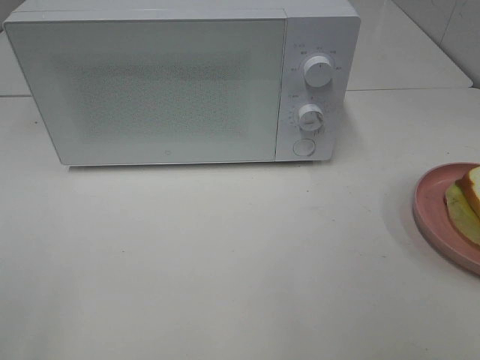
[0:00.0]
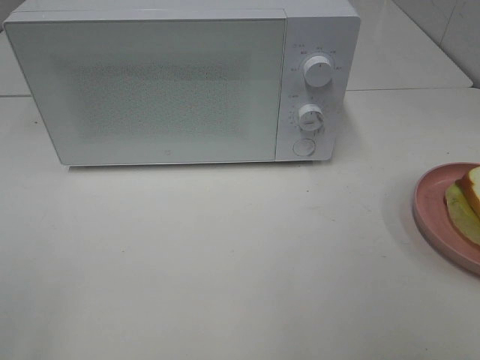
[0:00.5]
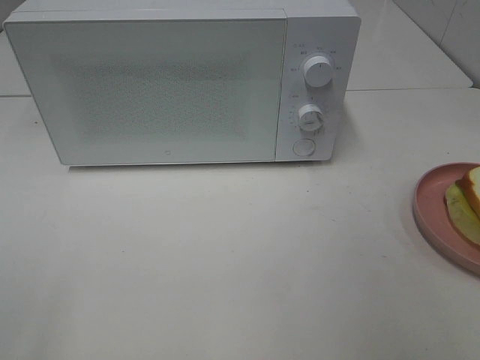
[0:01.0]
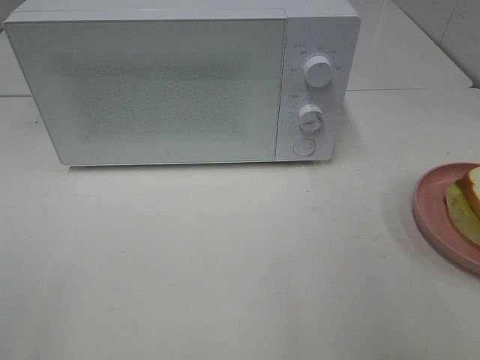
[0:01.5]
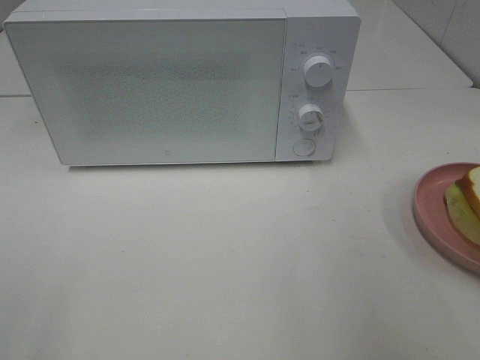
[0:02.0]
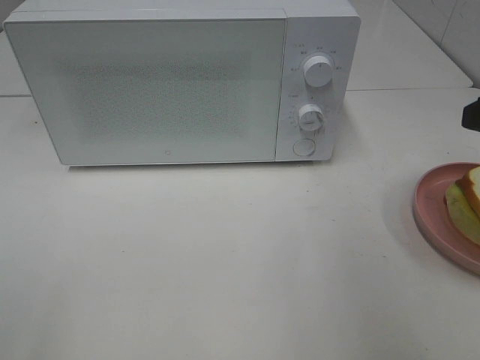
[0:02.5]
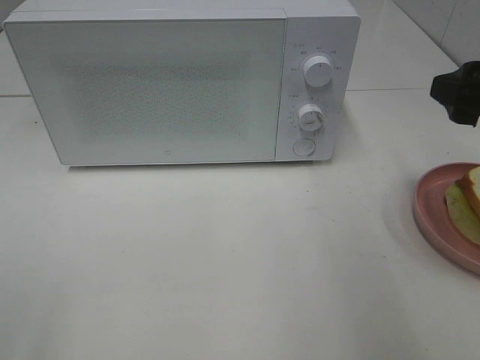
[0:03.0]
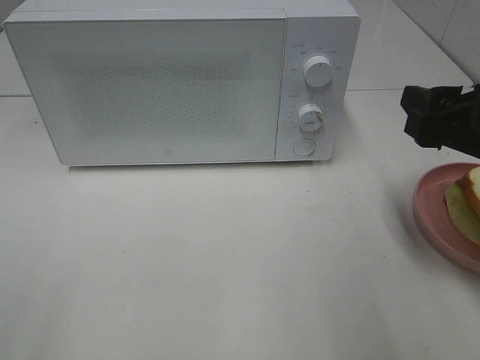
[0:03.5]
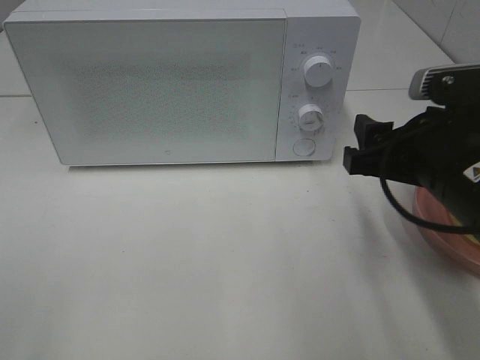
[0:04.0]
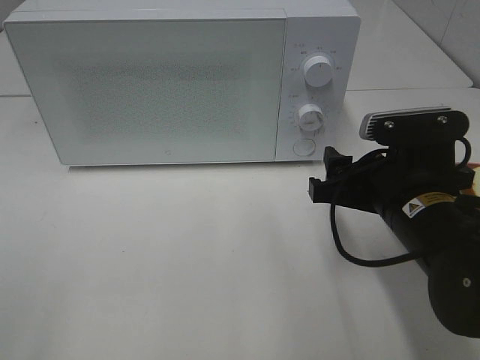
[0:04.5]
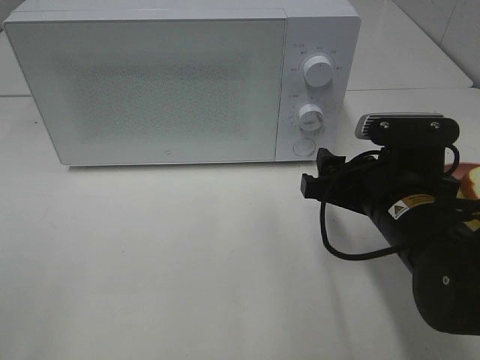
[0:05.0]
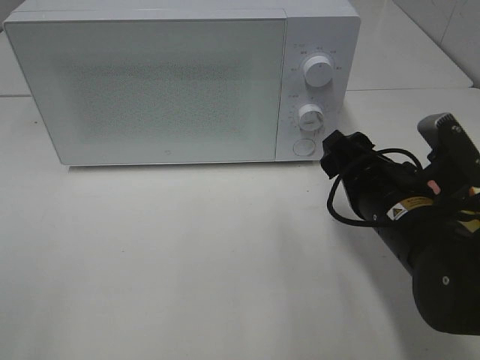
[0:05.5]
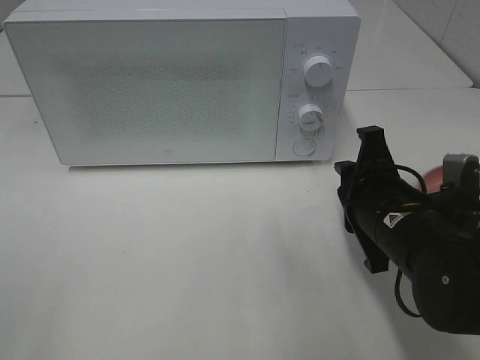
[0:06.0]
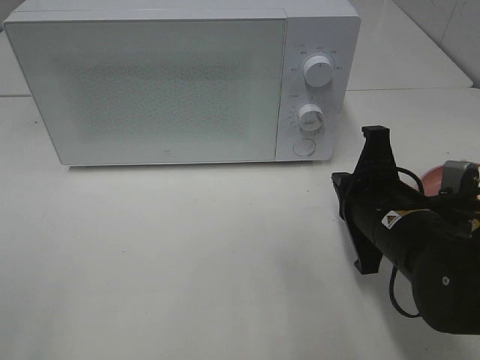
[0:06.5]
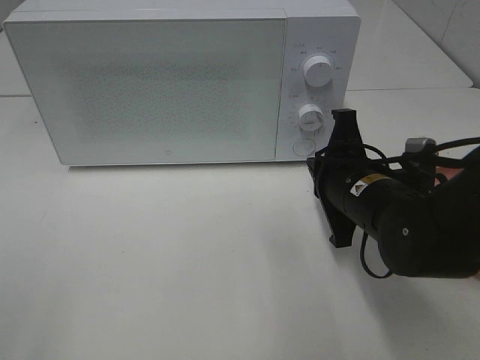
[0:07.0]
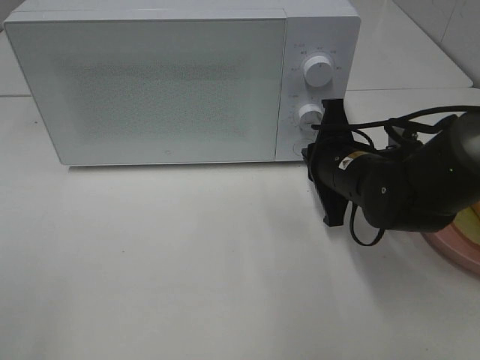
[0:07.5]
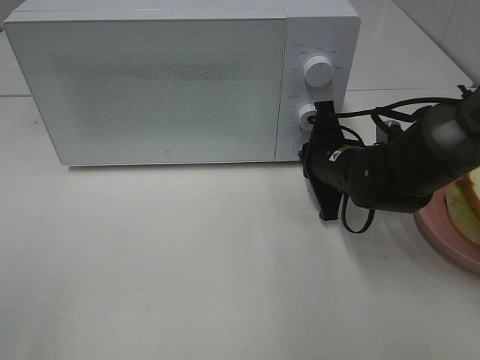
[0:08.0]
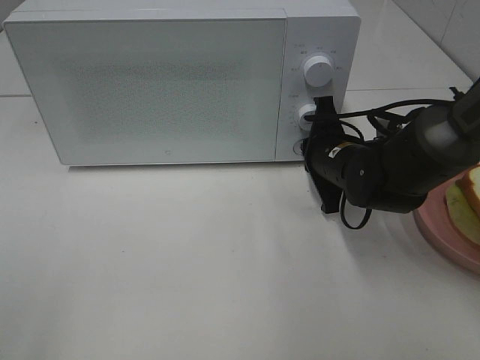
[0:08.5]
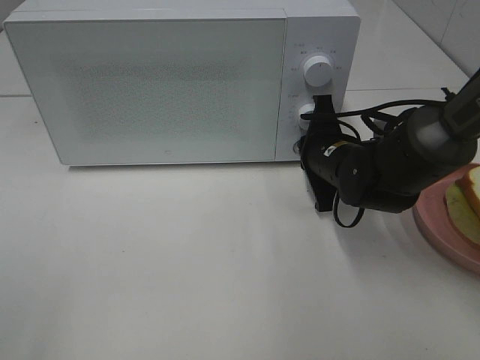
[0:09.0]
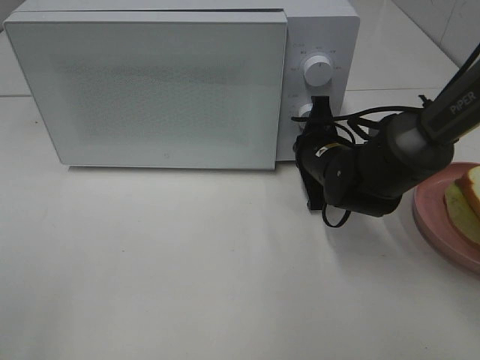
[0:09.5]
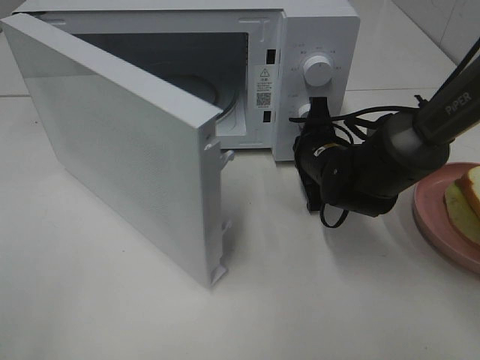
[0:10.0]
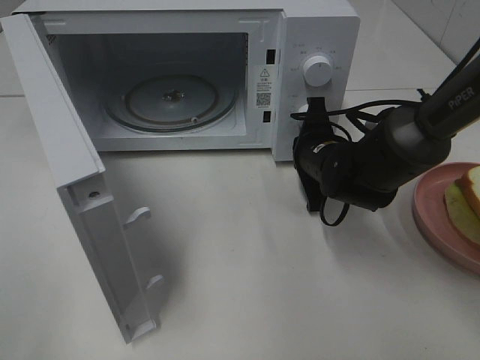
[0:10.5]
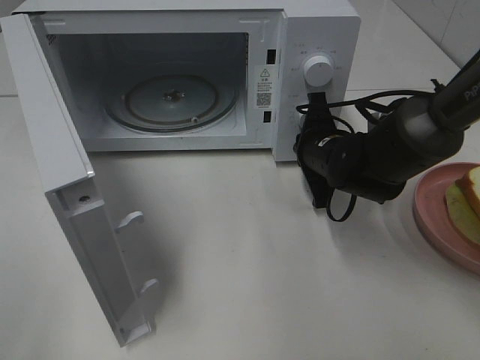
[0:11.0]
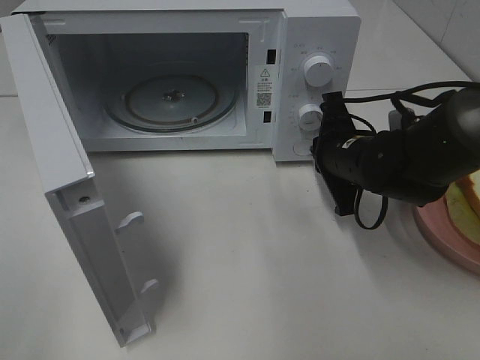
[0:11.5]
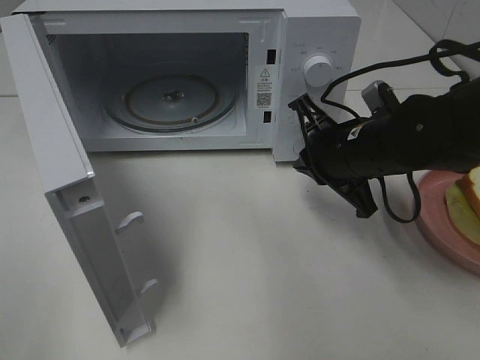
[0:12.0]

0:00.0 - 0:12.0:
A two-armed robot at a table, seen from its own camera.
Task of the whole recording: Heat Sandwich.
Step, 0:00.0 - 0:11.5: Right hand: press the switch.
0:02.0 - 0:04.0: The right gripper shifts roughly 15 cm downward, to the left and forward.
0:04.0 - 0:06.0: The right gripper travels downward by roughly 5 cm, and closes its fingers.
0:06.0 - 0:08.0: The right gripper moves forward, approximately 10 cm, and closes its fingers.
0:10.0 - 0:12.0: The right gripper travels upward and backward by approximately 10 cm.

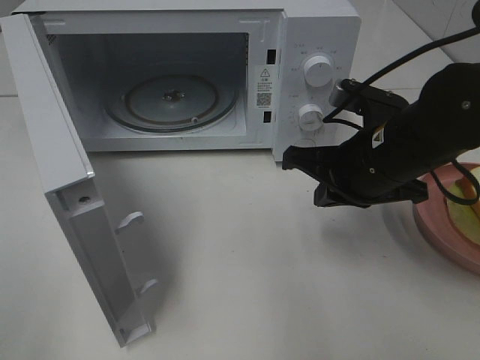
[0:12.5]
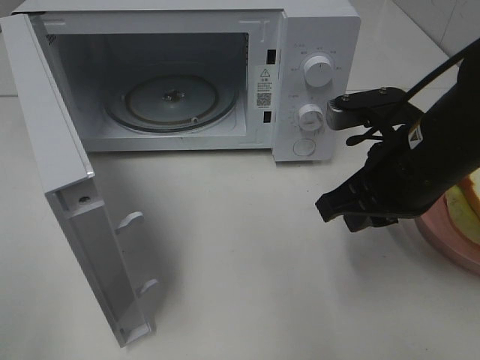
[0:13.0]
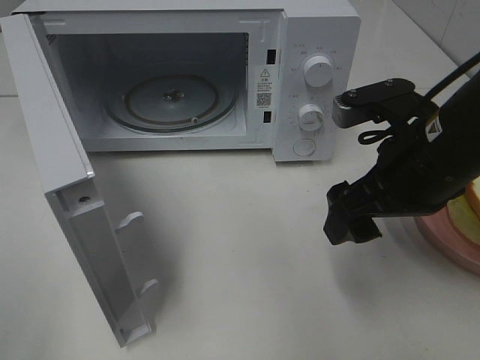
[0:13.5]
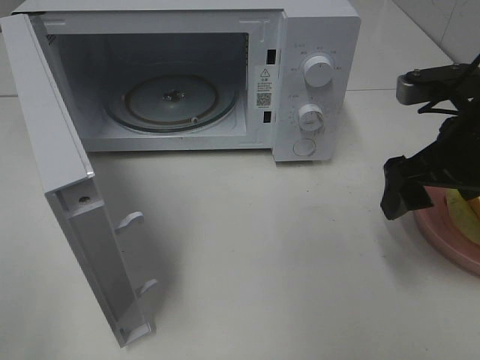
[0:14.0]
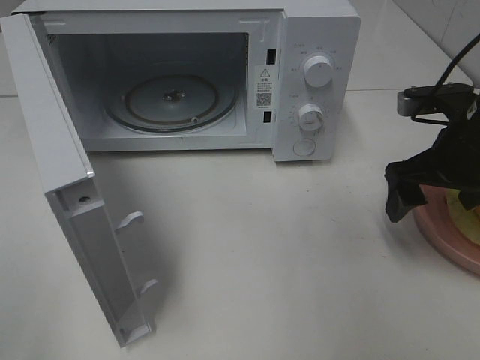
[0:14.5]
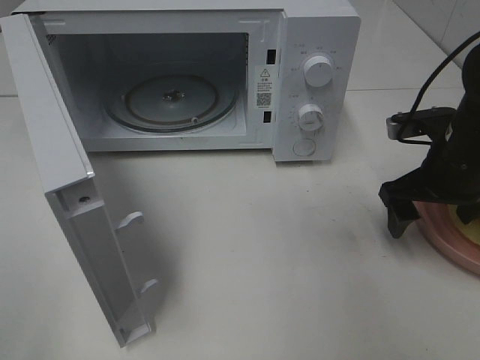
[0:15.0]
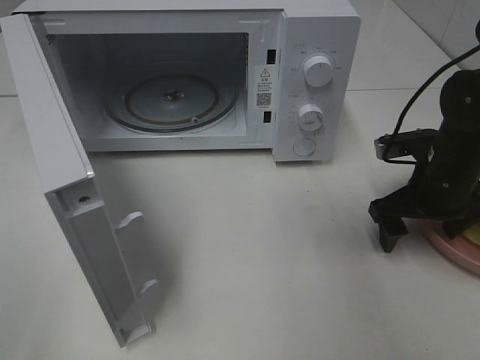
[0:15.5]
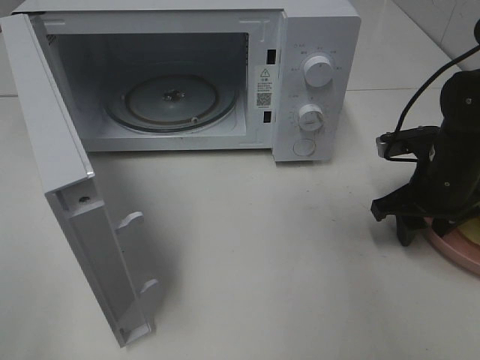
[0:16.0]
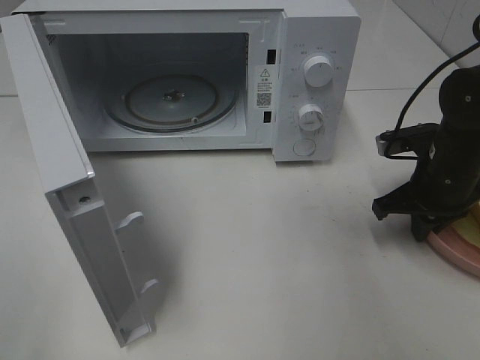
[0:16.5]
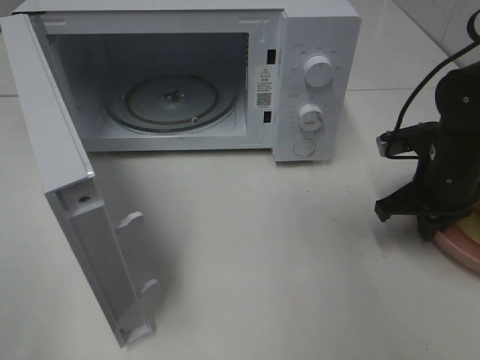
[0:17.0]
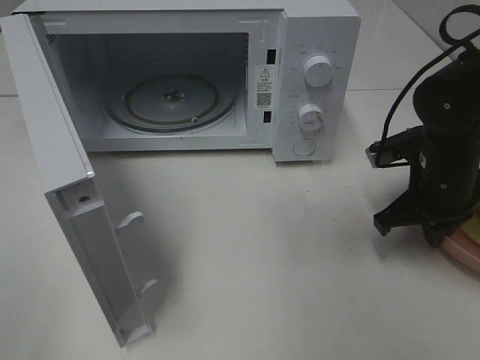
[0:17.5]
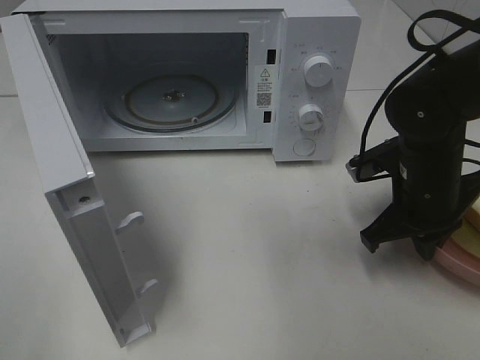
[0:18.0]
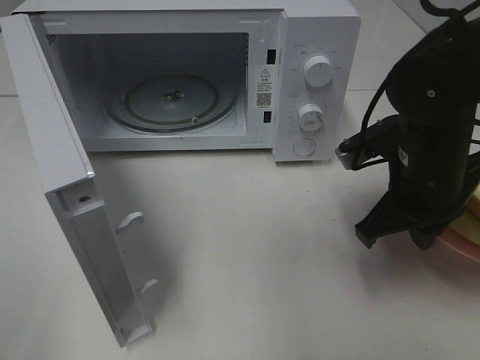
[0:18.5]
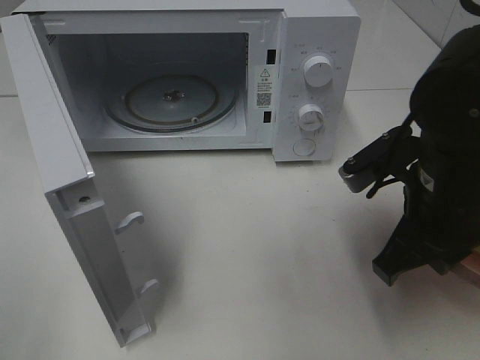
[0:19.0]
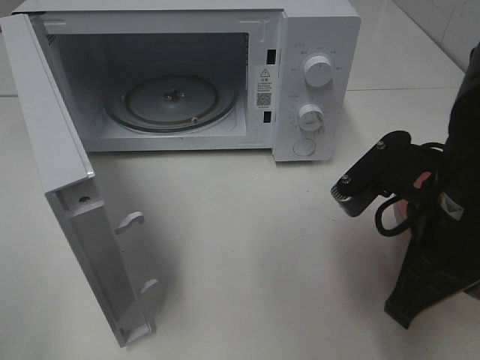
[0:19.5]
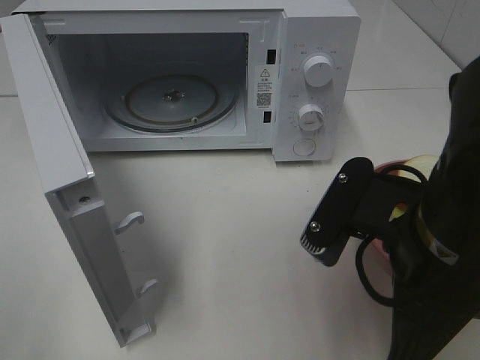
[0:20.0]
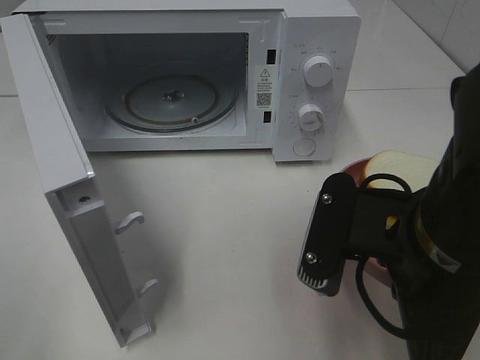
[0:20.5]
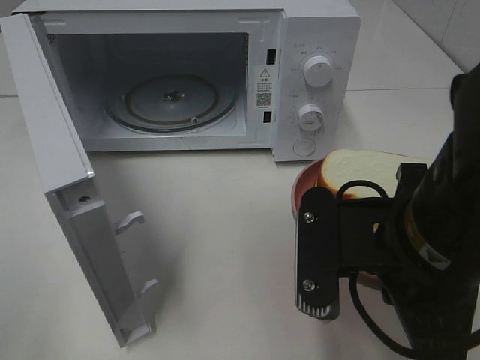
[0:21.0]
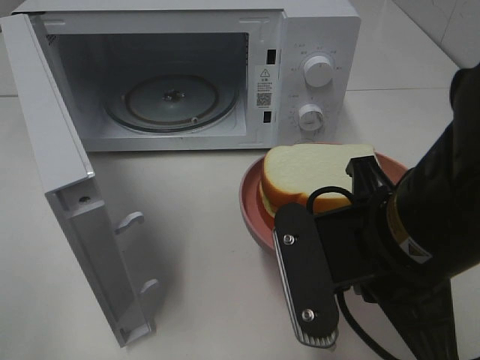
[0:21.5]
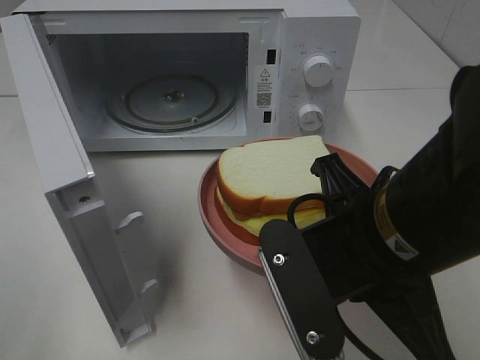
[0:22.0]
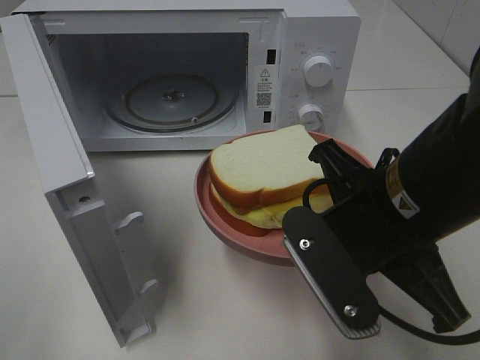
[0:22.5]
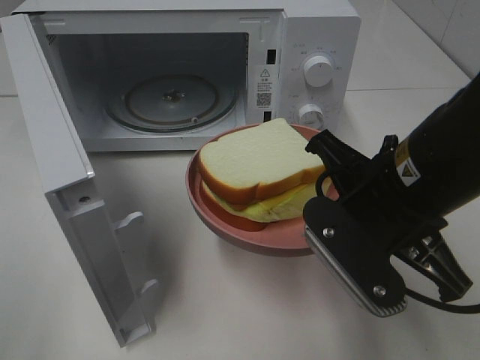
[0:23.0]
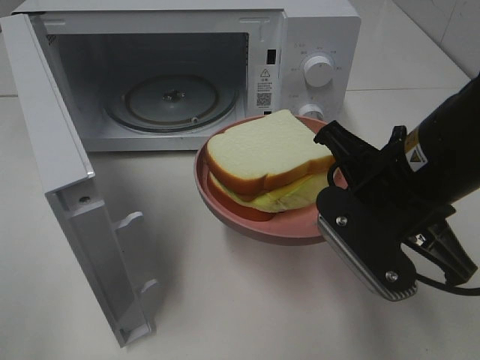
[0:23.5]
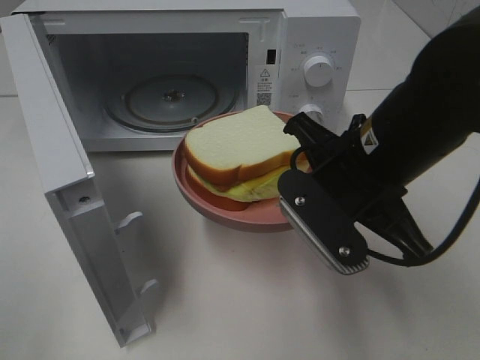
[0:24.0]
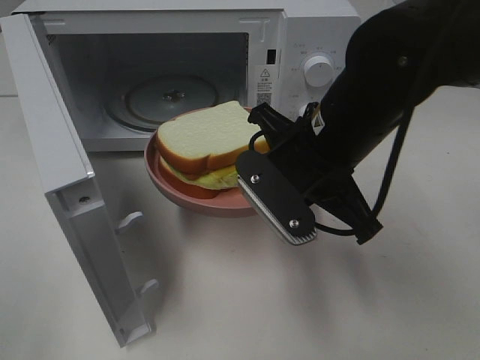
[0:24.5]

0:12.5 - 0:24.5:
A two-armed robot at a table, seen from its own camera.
Task of the whole recording: Heat Sandwich.
Step, 0:12.5 - 0:16.5: Right hand: grab the plate with the sandwich.
0:12.5 - 0:14.5: The right gripper shifts about 10 cm to the right, and opens up.
0:14.5 - 0:16.5: The right gripper heads downward, covering roughly 5 cm, and closes its fingers.
0:16.5 - 0:18.5: The right gripper shifts approximately 10 cm to the left, backward and upward.
0:18.5 - 0:20.5: The right gripper shifts approximately 15 cm backward and to the left.
0:22.5 - 0:24.5: The right gripper heads forward, covering roughly 10 cm.

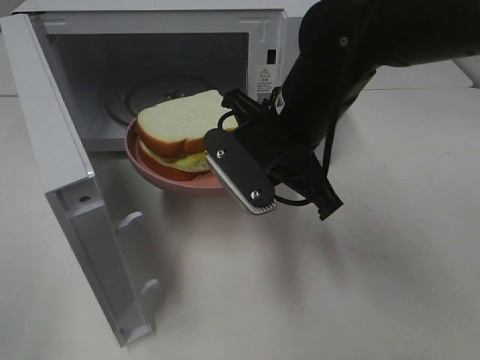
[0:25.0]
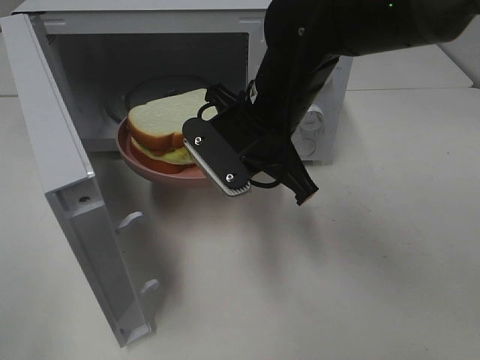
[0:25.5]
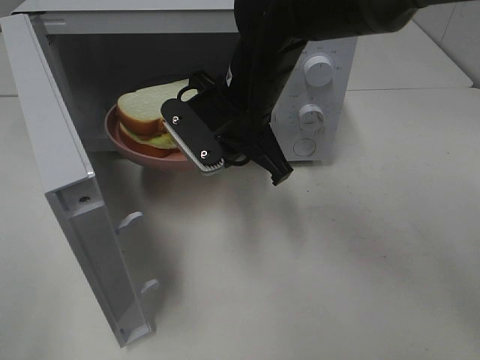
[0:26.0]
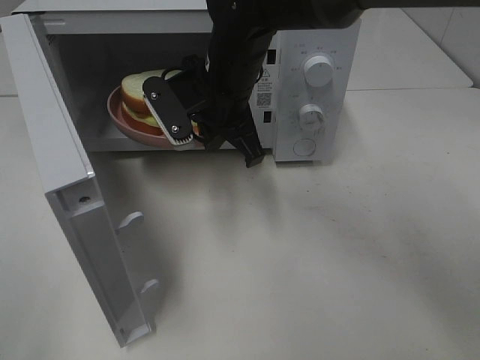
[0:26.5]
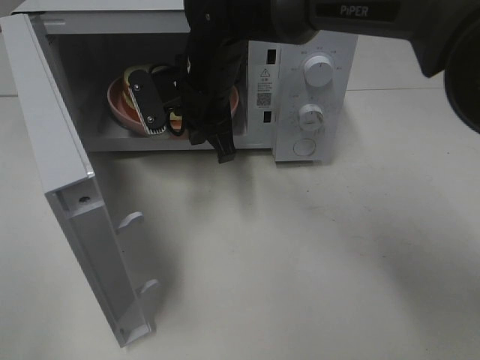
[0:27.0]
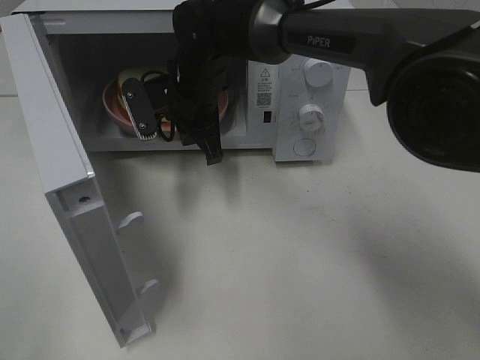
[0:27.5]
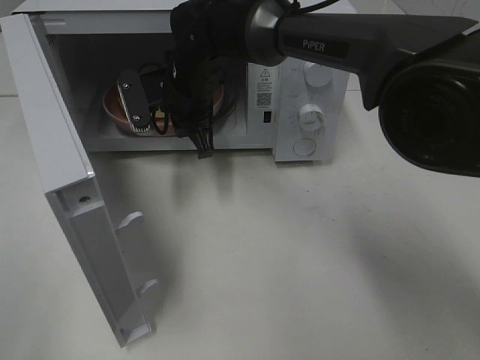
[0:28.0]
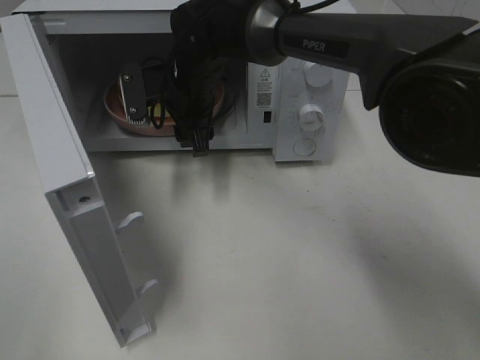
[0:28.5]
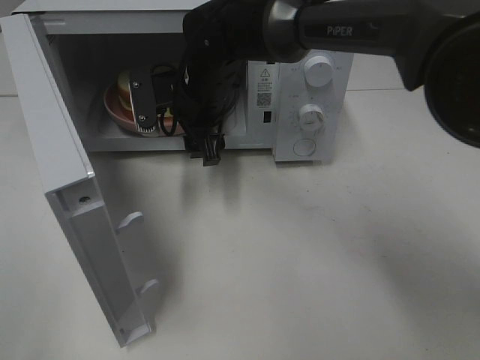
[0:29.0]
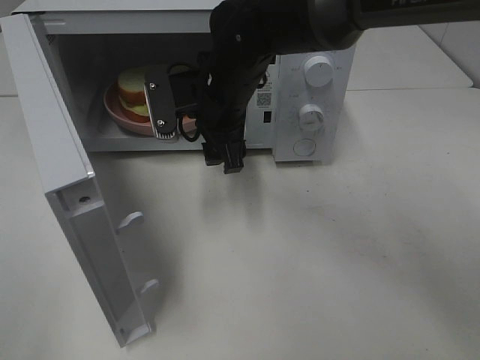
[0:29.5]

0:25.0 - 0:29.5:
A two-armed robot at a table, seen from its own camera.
Task of the whole recording: Heat Sandwich.
0:25.0 - 0:27.0: The right gripper moves forward and to the left, approximately 15 cm.
0:27.0 - 0:29.5: The right gripper opens.
